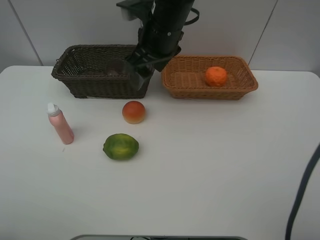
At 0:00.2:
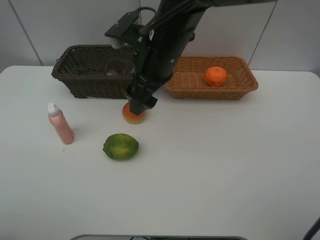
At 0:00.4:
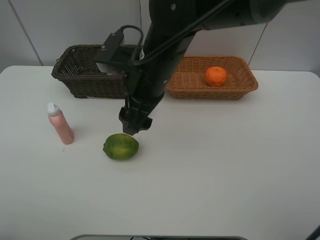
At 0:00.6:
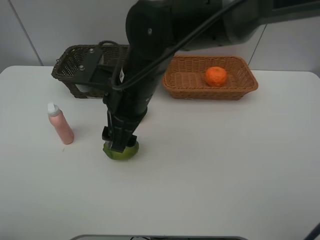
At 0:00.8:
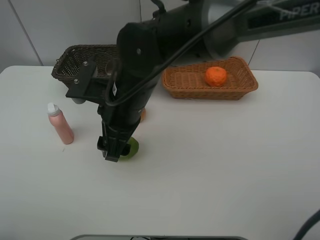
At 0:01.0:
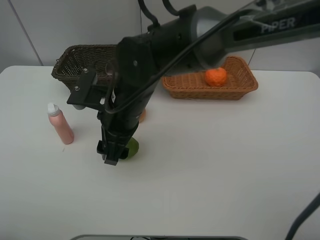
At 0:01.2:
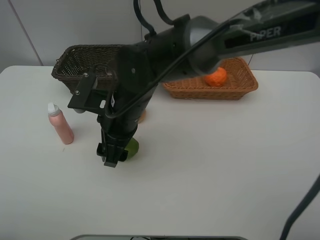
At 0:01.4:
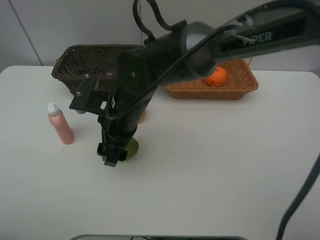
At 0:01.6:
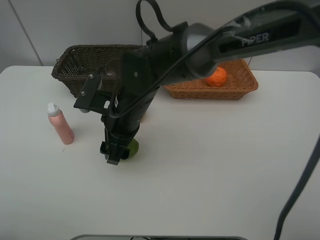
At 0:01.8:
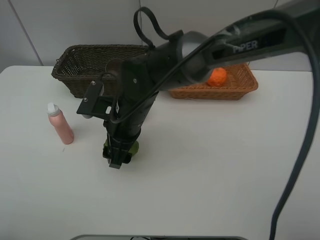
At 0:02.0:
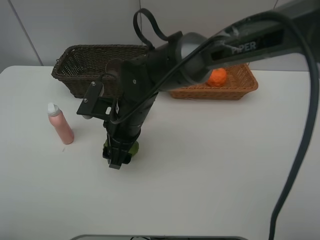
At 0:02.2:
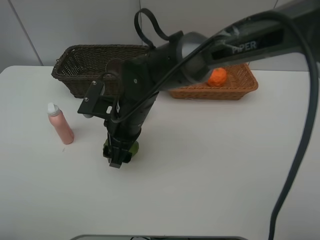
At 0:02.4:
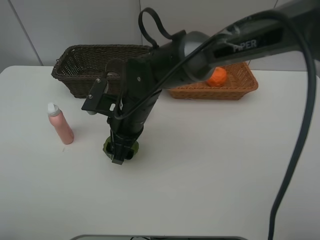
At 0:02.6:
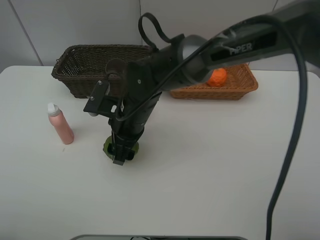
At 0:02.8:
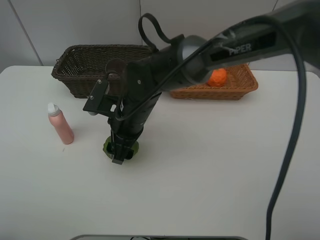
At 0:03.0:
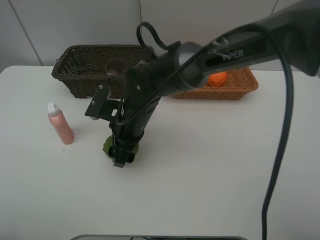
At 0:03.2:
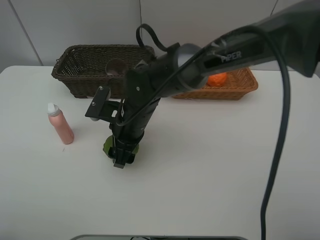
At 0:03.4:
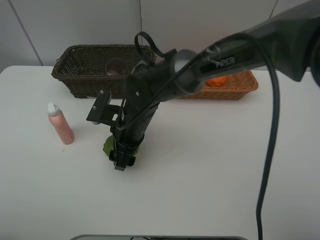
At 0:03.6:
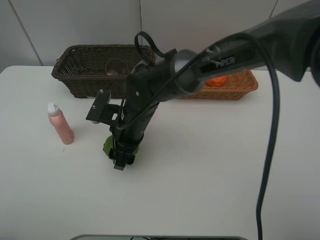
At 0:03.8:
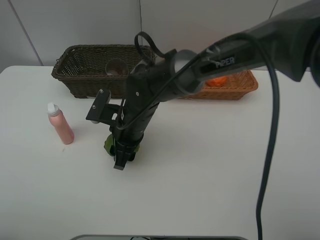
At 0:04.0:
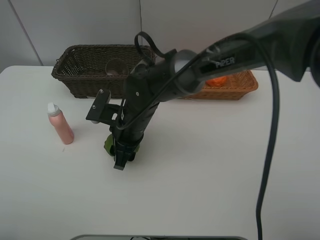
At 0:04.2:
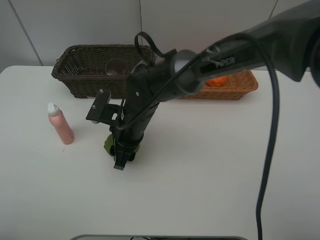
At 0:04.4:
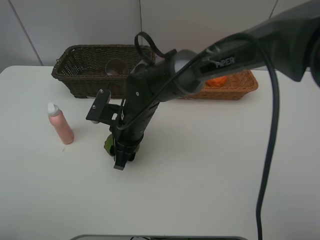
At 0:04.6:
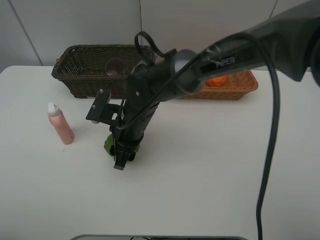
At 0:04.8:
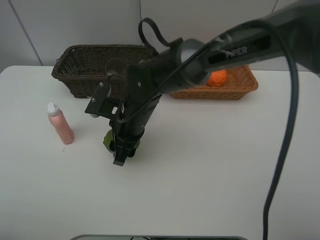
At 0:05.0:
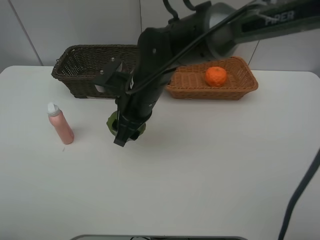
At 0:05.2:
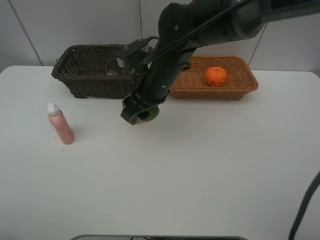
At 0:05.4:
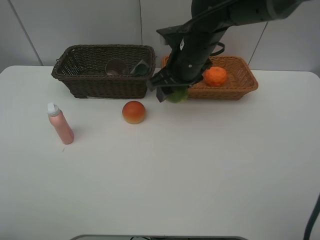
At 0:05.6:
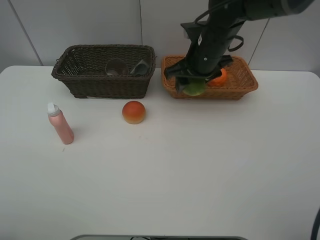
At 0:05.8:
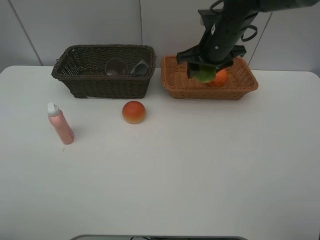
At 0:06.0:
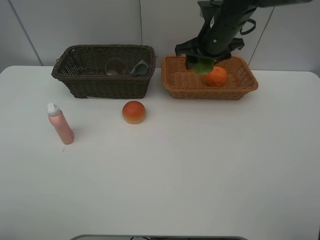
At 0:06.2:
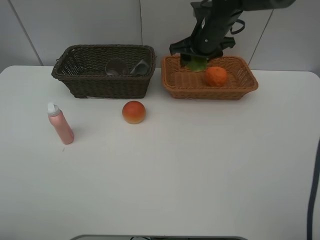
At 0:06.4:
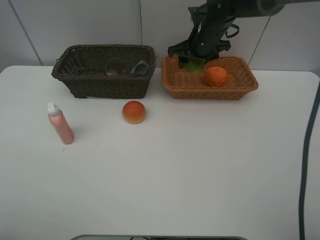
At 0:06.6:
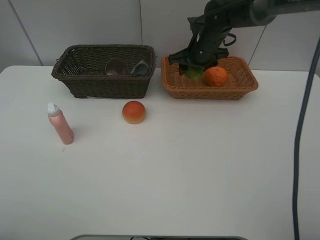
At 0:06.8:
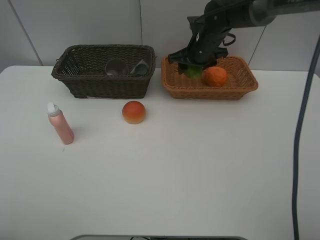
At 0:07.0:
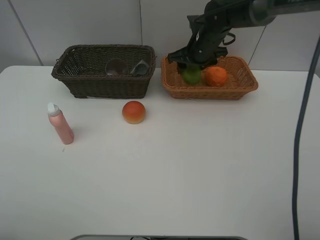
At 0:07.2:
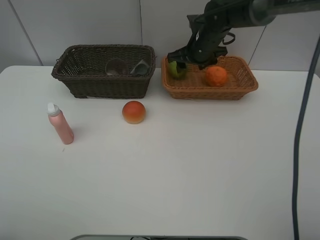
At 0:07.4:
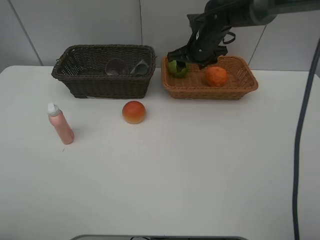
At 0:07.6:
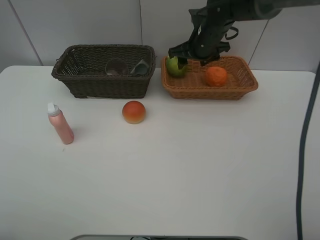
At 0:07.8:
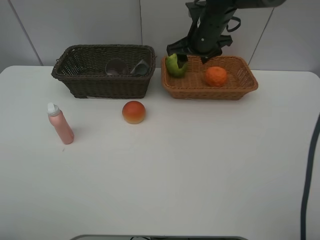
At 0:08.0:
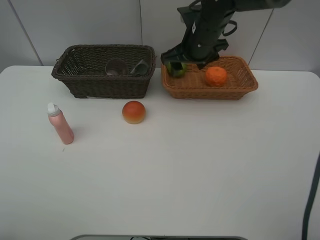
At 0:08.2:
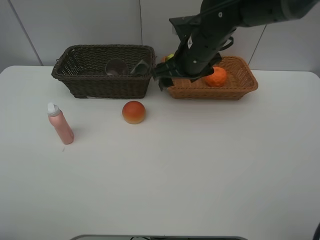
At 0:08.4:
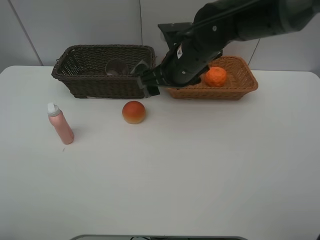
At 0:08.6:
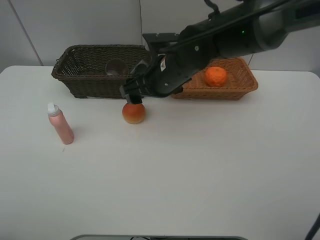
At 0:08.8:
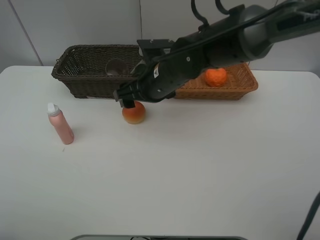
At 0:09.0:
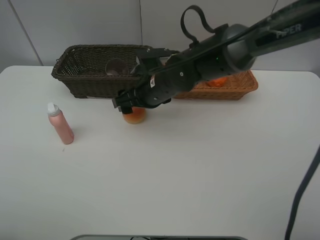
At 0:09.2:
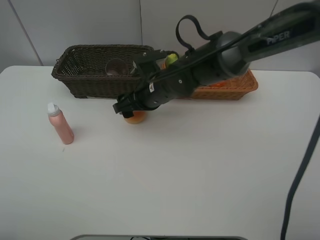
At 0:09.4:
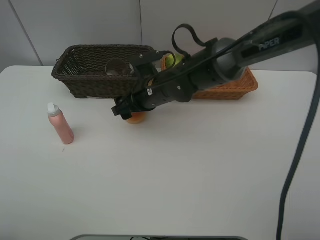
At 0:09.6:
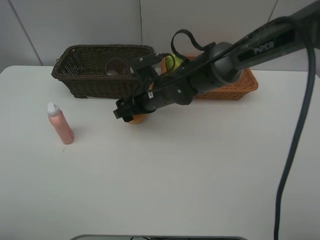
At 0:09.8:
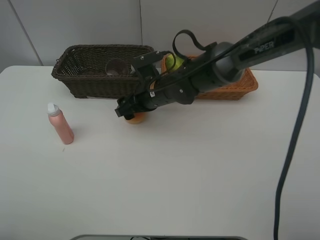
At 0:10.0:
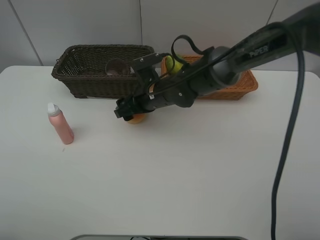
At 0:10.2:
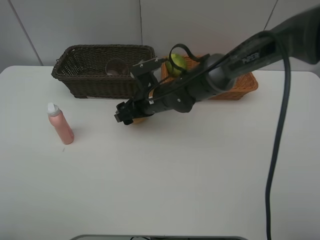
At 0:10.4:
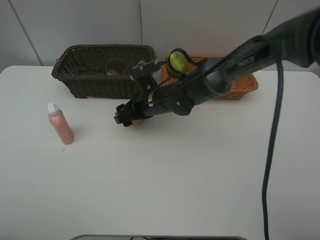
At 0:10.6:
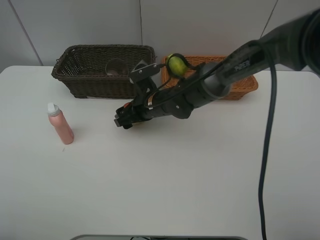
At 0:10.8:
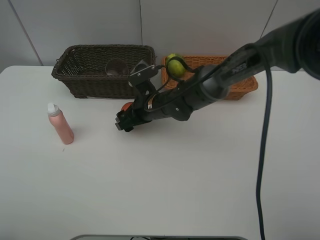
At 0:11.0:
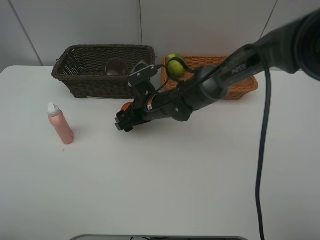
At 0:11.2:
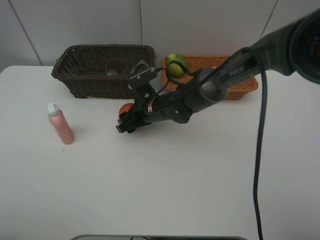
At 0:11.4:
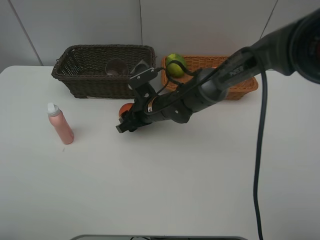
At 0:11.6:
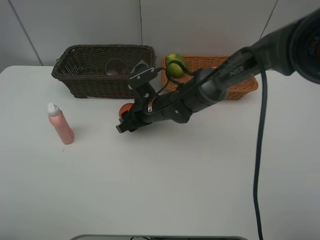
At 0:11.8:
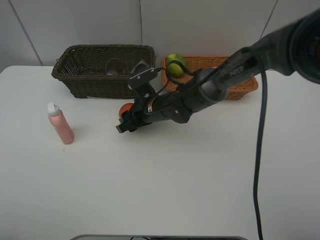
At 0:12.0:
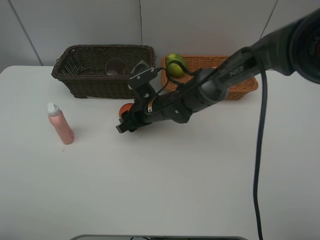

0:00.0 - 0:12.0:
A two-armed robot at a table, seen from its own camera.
Task of the whole recording: place multiple objects separately in different baskets.
0:00.0 - 0:01.6: The right gripper is displaced downward, backward and to the left by some 15 cm.
0:01.6 - 0:03.0: There are only small adjustments of the grippers.
0:03.0 - 0:04.4: The two grippers keep their place.
0:04.4 - 0:06.0: The right gripper travels to the right, upward and forward by approximately 25 cm.
0:06.0 - 0:07.6: The right gripper ends up some 5 cm from where it was.
0:07.6 - 0:09.0: The right gripper goes about 20 cm backward, to the left and downward.
0:09.0 - 0:10.4: The right gripper moves downward, approximately 5 cm.
0:10.4 - 0:12.0: The grippers move only a little.

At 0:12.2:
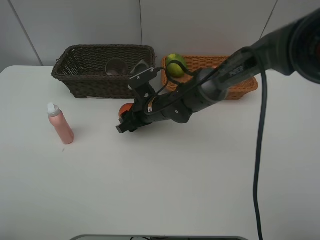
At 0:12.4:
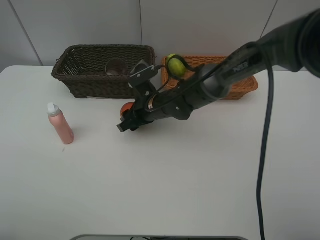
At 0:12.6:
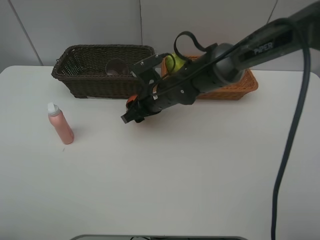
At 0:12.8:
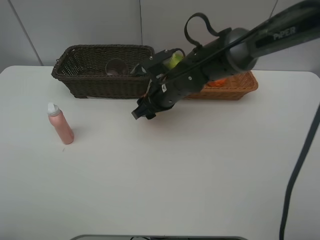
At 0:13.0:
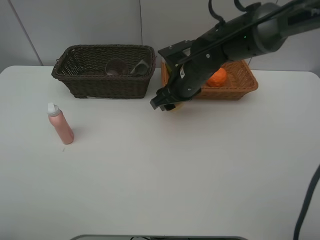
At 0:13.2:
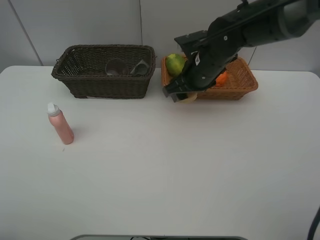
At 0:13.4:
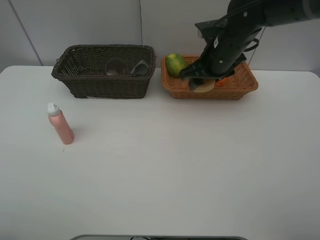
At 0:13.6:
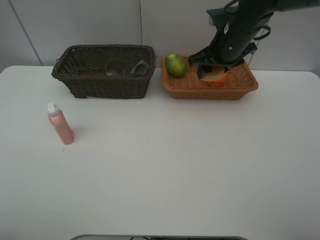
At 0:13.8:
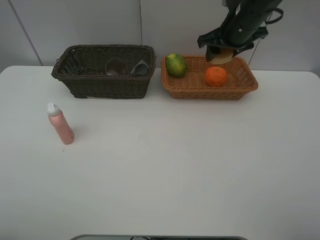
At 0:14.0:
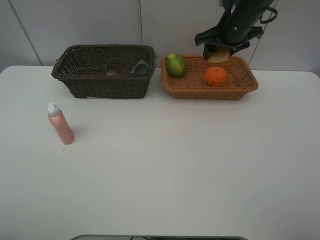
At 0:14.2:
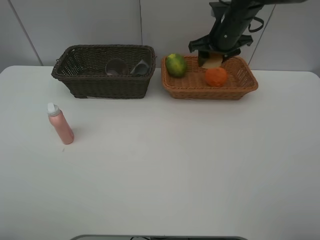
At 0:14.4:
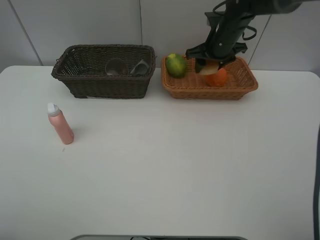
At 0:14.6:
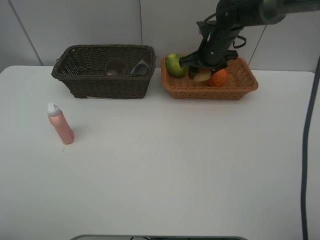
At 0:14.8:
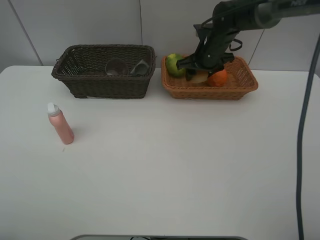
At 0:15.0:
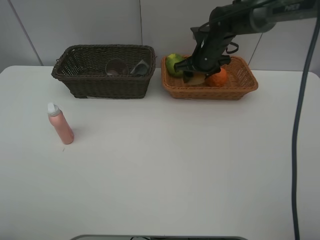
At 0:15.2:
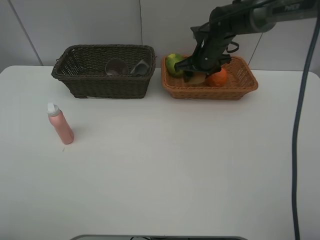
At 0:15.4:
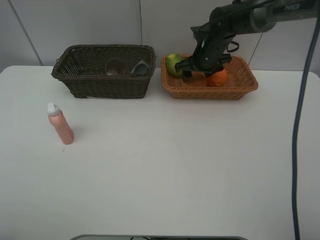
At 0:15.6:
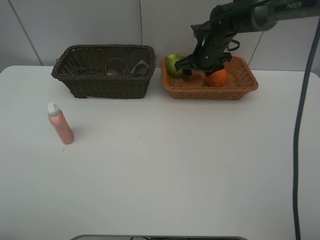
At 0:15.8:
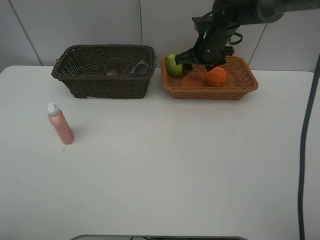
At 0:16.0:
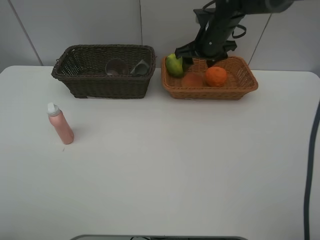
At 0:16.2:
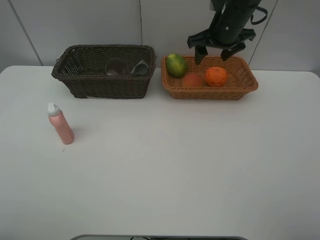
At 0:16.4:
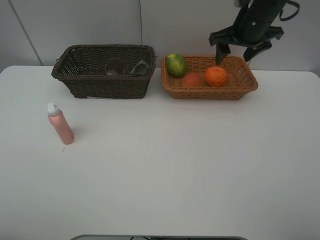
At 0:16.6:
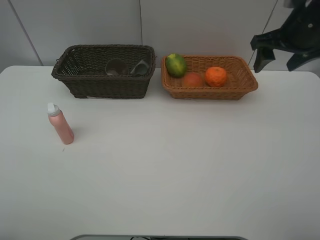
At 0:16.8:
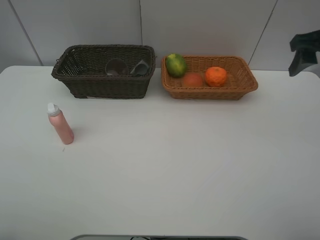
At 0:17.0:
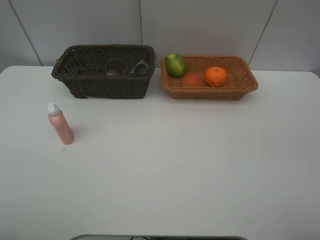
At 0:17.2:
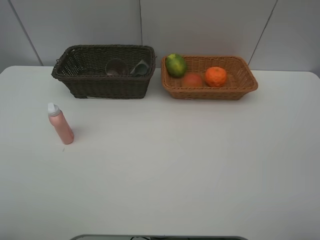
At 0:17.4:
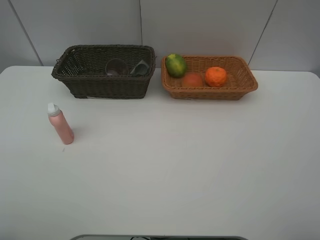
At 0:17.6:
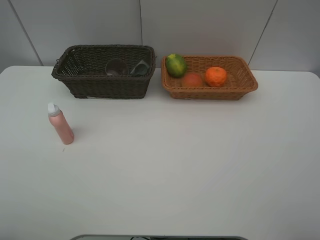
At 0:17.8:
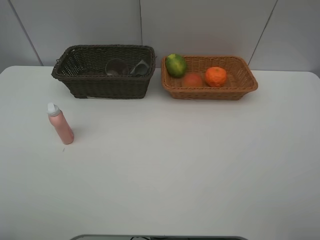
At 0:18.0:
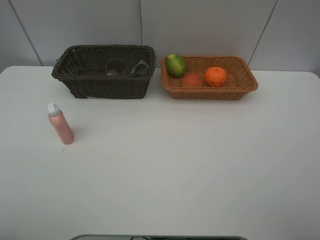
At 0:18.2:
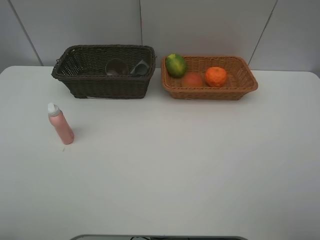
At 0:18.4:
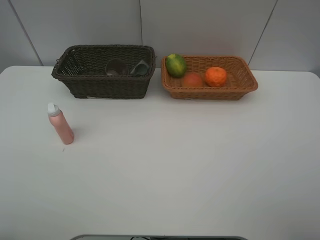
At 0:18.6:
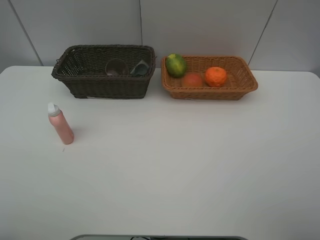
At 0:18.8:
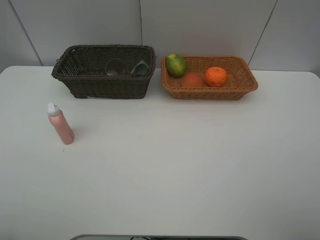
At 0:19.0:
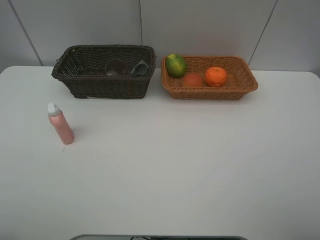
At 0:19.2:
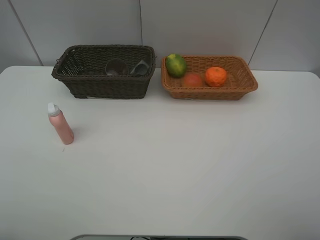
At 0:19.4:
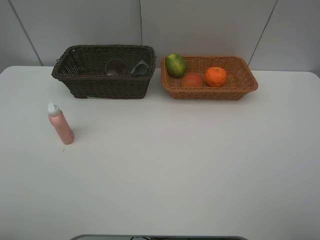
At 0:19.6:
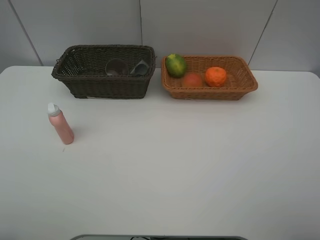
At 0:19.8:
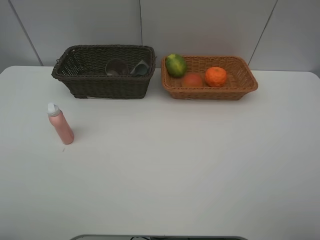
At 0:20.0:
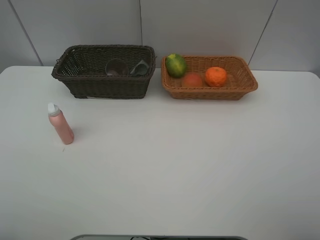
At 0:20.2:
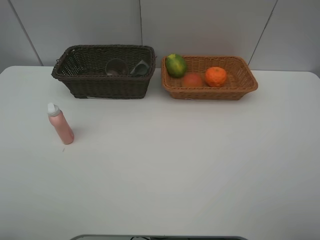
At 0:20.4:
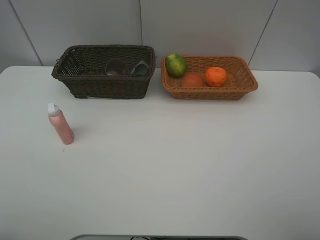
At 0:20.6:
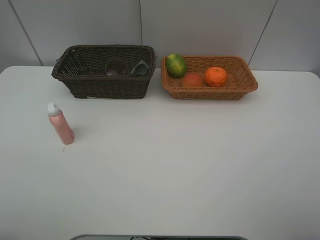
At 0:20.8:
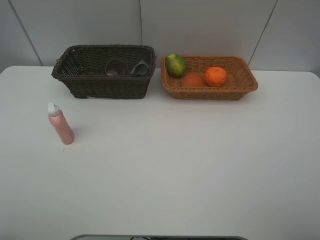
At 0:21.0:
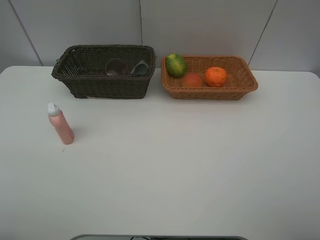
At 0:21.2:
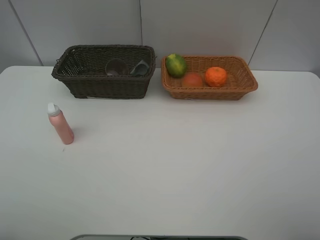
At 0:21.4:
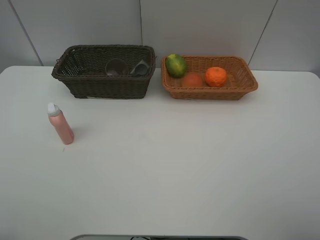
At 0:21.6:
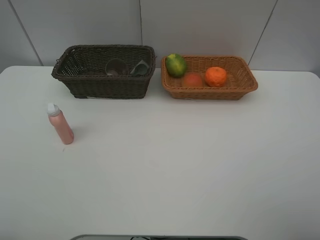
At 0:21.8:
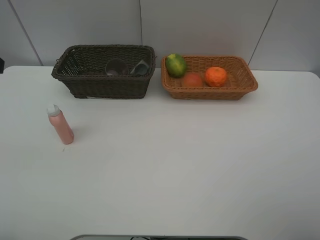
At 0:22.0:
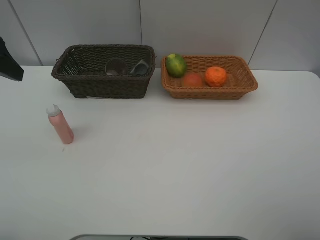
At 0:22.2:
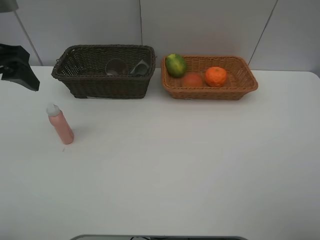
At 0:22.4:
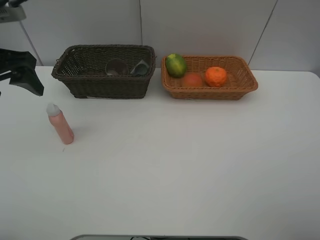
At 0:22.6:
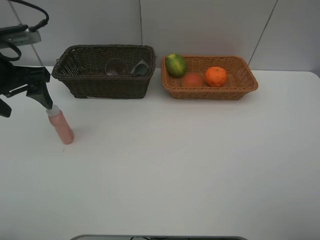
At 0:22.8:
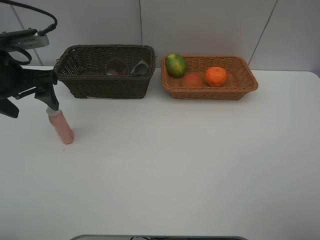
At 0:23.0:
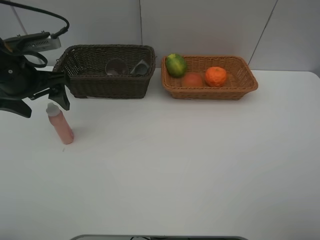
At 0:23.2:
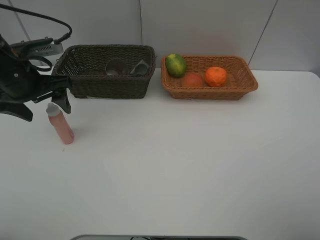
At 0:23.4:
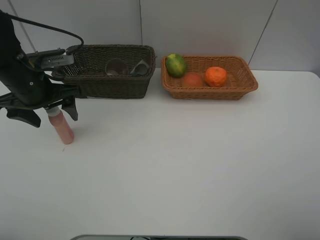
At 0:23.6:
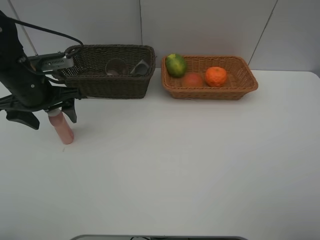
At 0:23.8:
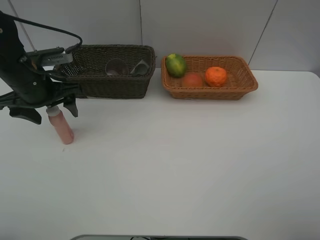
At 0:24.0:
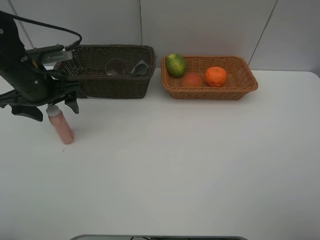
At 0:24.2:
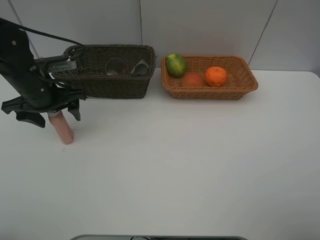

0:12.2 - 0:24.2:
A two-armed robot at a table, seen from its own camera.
Task of the whole recording: place multiple objects separately in different baskets.
0:12.2 - 0:13.8: The right gripper shifts approximately 25 cm upward and to the right.
0:13.8 - 0:15.2: The right gripper heads downward and forward, covering some 10 cm.
0:15.2 - 0:16.6: The right gripper moves backward, to the right and upward, approximately 25 cm.
0:16.6 - 0:18.2: The right gripper heads backward, covering roughly 30 cm.
0:19.8 - 0:21.2: The two grippers keep their place.
0:21.2 - 0:22.6: The left gripper moves forward, approximately 25 cm.
0:22.6 - 0:24.2: The left gripper is displaced downward by about 10 cm.
